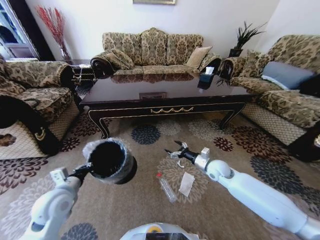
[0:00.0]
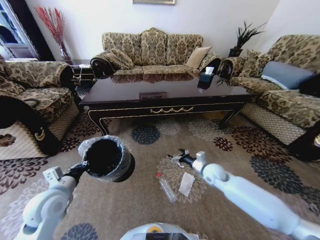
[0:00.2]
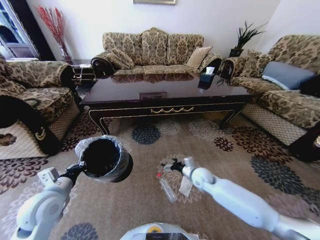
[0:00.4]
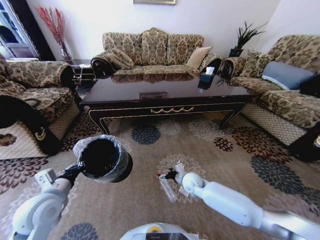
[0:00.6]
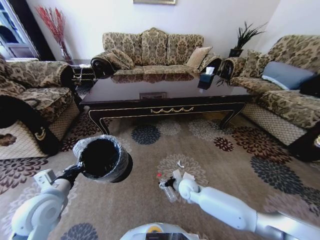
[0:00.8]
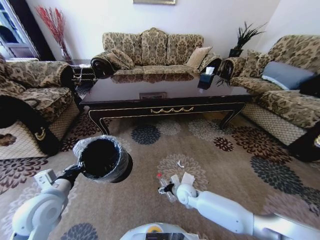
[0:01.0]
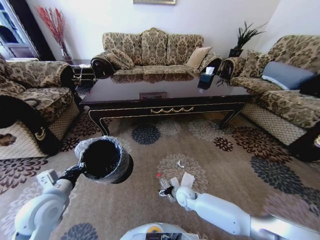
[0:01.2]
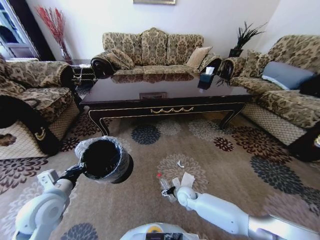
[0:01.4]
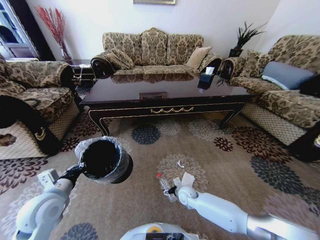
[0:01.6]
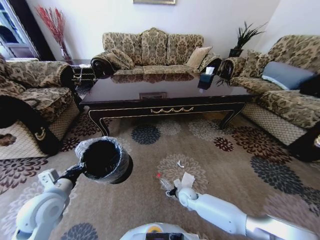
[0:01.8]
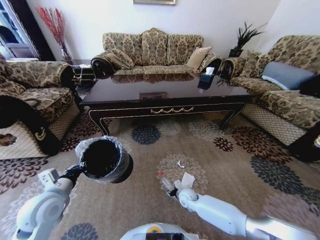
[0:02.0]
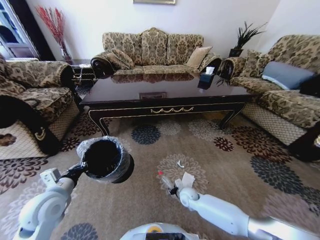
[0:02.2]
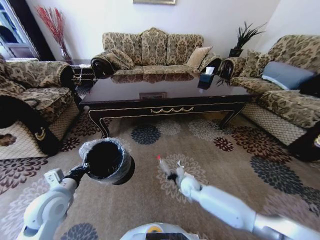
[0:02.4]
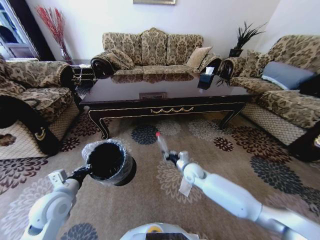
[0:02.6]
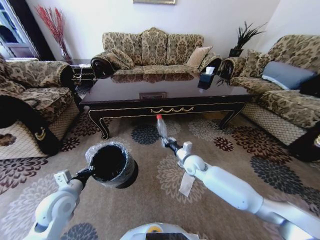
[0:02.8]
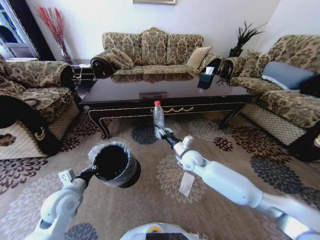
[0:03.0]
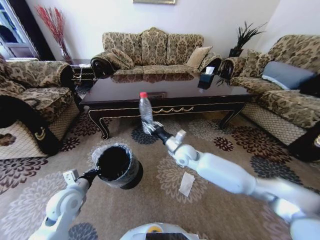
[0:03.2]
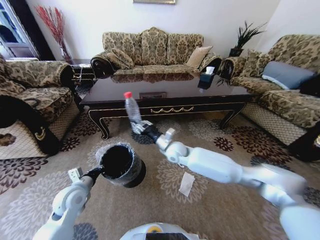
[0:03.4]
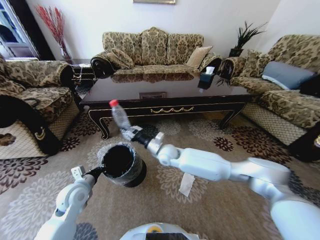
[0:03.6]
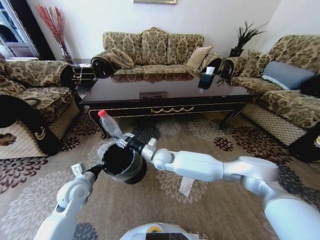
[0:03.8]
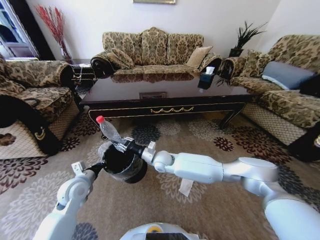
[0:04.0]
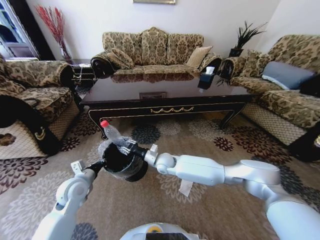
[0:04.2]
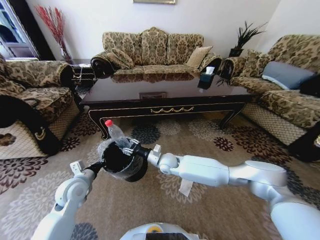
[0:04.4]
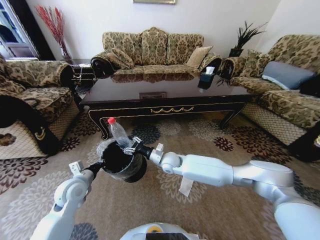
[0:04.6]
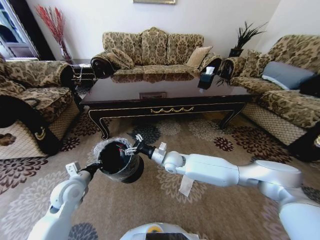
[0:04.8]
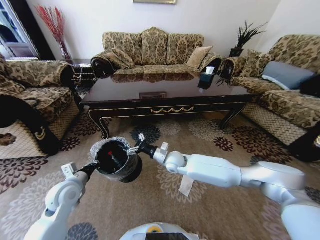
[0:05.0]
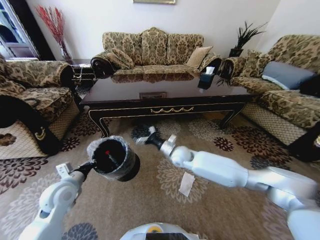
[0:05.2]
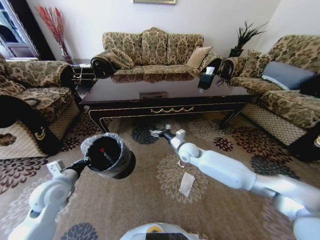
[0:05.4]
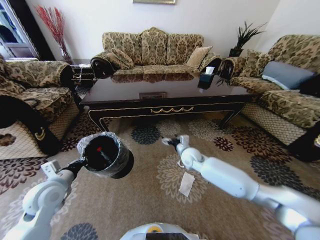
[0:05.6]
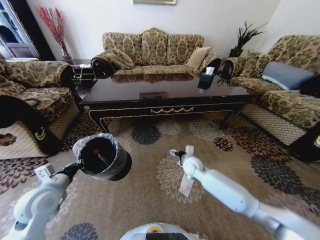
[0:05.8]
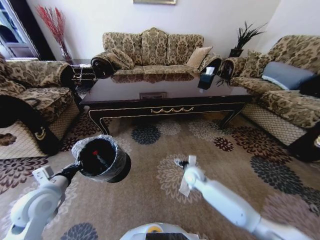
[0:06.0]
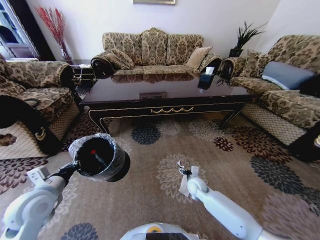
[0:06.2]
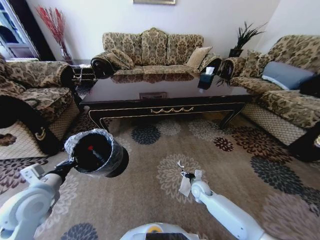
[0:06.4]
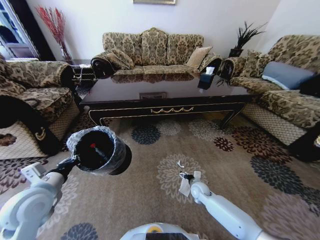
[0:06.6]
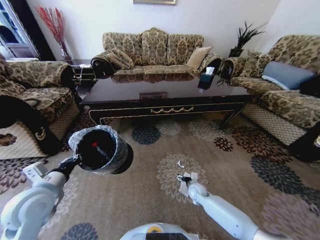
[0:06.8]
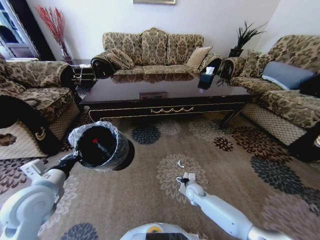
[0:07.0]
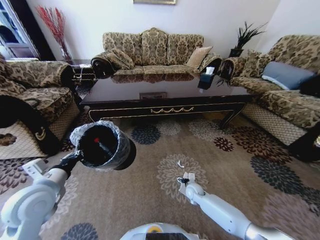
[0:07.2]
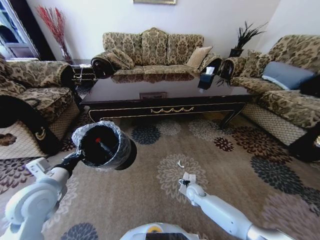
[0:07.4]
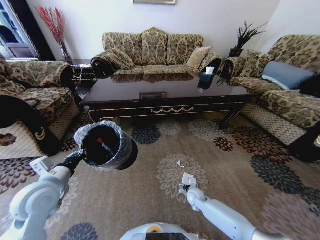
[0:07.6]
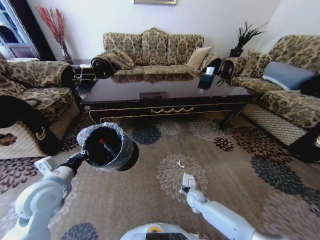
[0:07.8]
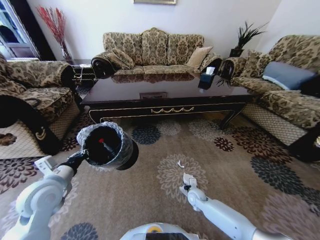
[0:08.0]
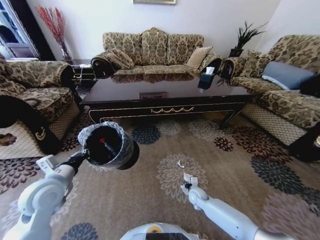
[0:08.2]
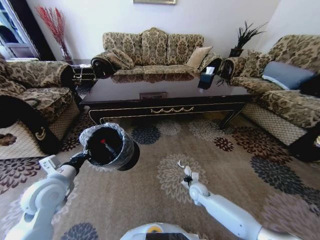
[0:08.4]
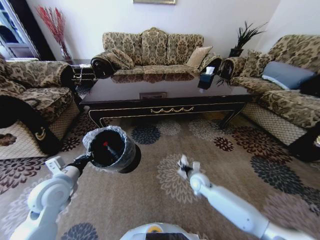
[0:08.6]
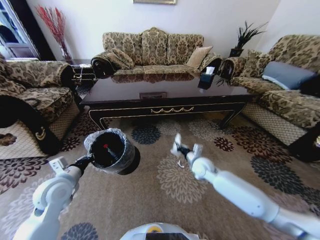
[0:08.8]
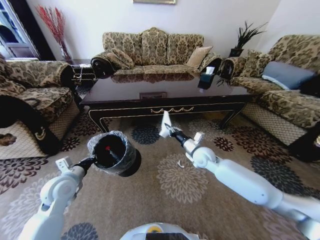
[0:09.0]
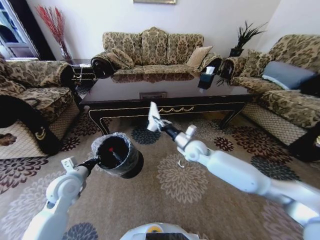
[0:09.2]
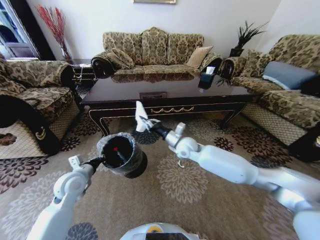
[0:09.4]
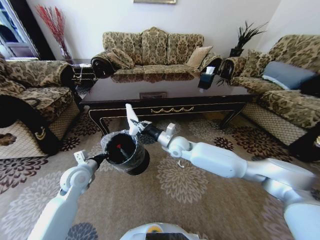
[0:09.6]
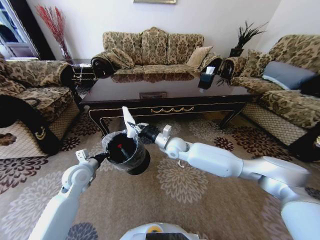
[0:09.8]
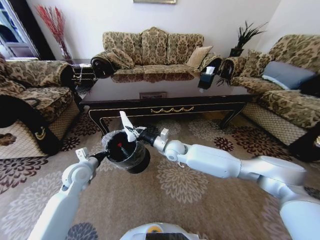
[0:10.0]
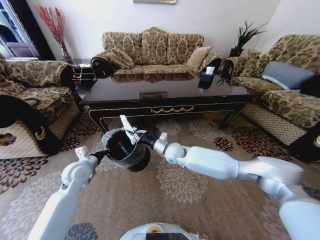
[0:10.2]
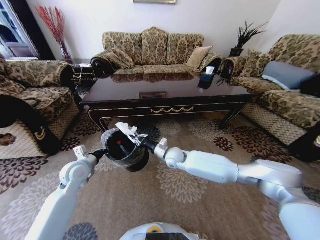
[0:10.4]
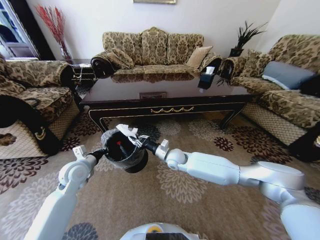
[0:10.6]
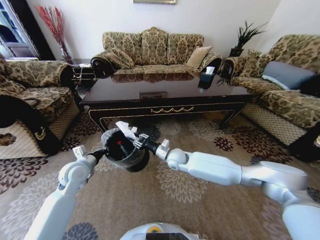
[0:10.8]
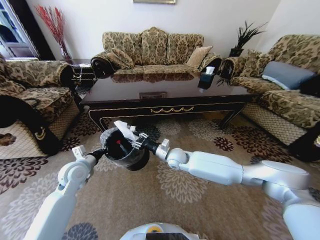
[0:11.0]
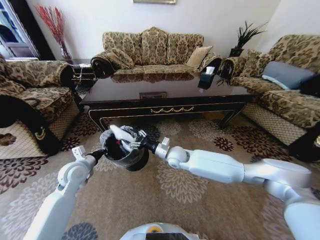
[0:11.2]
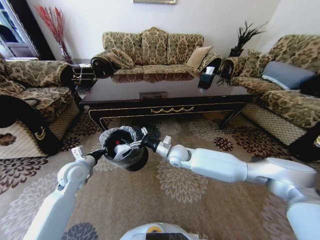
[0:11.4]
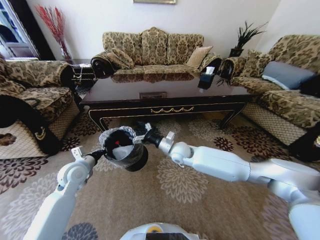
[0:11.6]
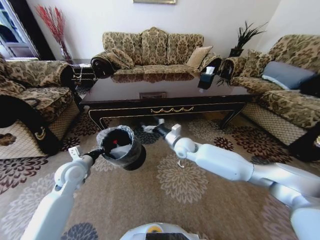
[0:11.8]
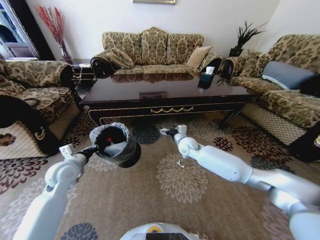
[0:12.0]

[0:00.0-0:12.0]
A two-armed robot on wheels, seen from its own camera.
Task of the whole recording: Move to the front of the table and pick up the trash from the floor, then place it into the trash bin.
0:00.0 to 0:01.6: The right gripper moves downward and to the left, approximately 20 cm.
0:01.6 to 0:03.0: The right gripper moves upward and forward, some 20 cm, and closes its fingers; the left gripper shifts by approximately 5 cm.
0:03.0 to 0:04.4: The right gripper moves to the left, approximately 10 cm.
0:04.4 to 0:06.0: The right gripper moves to the right and downward, some 15 cm, and opens up; the left gripper goes some 10 cm backward and upward.
0:06.0 to 0:07.6: The right gripper moves downward and backward, approximately 15 cm.
0:07.6 to 0:09.0: The left gripper shifts about 5 cm downward. Meanwhile the right gripper goes roughly 25 cm upward, and closes its fingers.
0:09.0 to 0:10.4: The right gripper is displaced to the left by approximately 15 cm; the left gripper heads forward, covering some 5 cm.
0:10.4 to 0:12.0: The right gripper goes roughly 5 cm to the right, and opens its fingers.

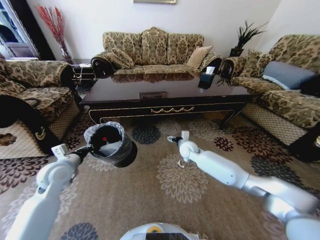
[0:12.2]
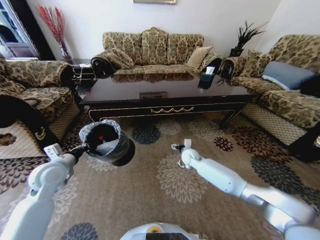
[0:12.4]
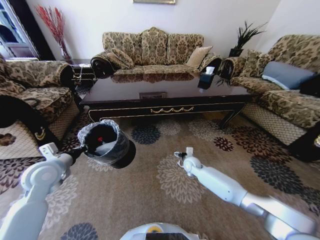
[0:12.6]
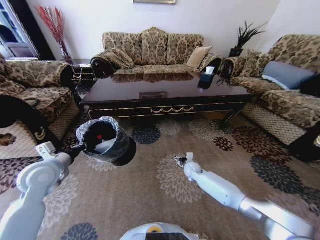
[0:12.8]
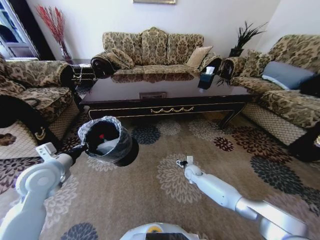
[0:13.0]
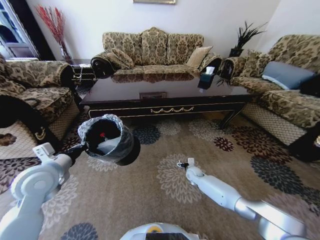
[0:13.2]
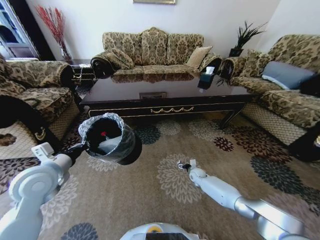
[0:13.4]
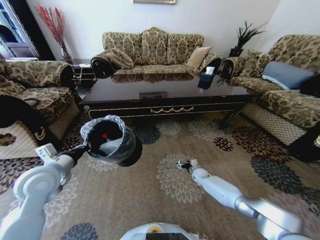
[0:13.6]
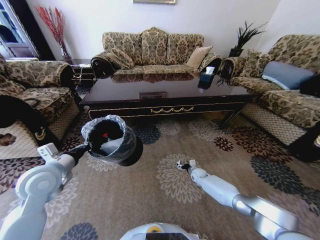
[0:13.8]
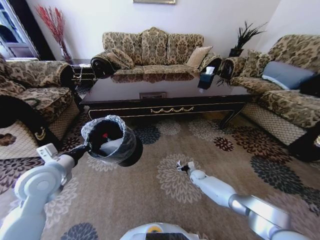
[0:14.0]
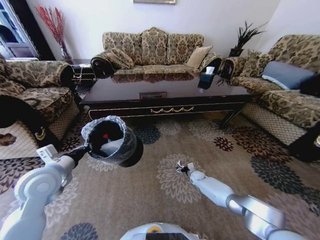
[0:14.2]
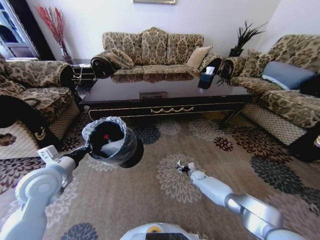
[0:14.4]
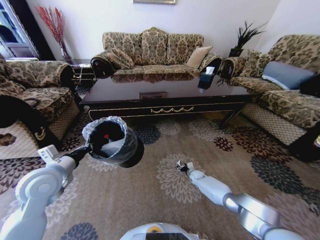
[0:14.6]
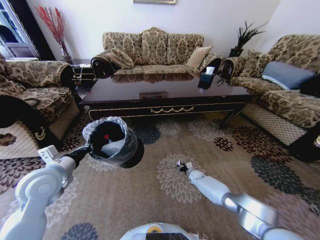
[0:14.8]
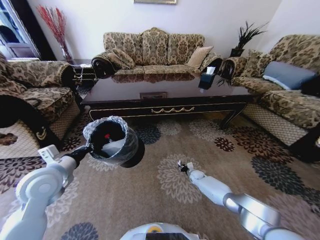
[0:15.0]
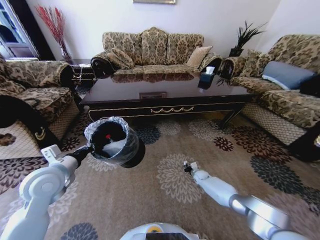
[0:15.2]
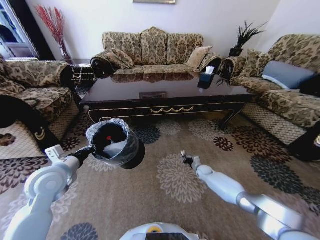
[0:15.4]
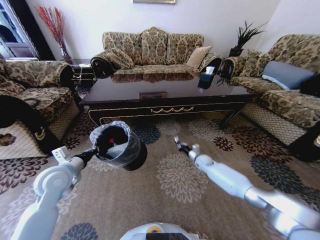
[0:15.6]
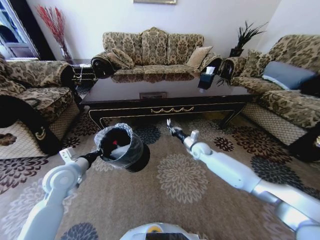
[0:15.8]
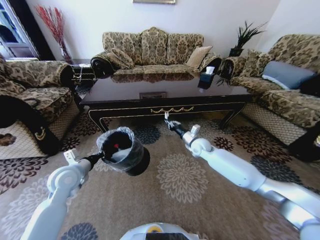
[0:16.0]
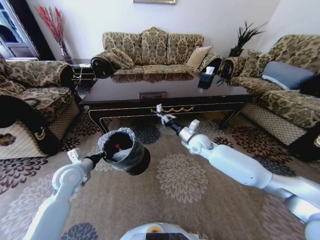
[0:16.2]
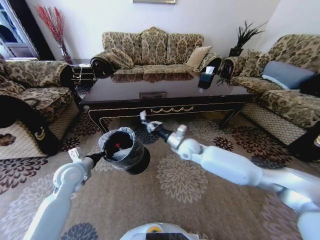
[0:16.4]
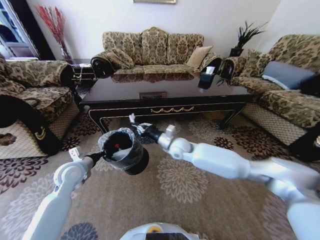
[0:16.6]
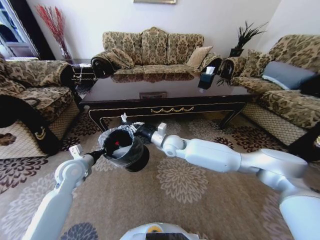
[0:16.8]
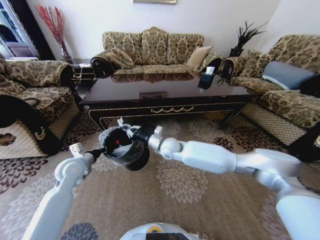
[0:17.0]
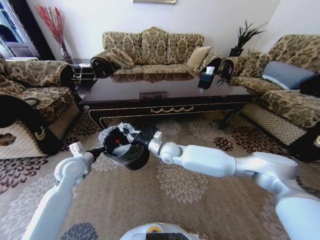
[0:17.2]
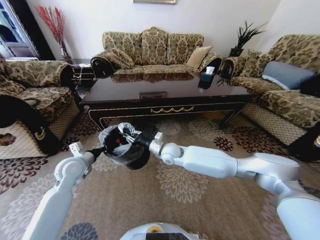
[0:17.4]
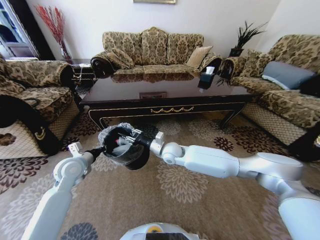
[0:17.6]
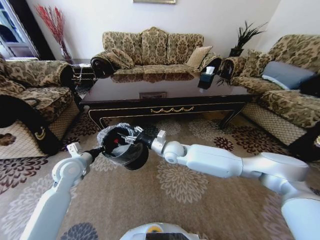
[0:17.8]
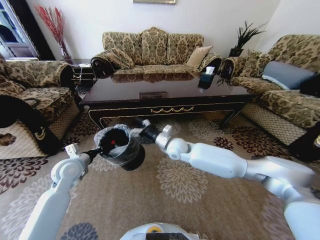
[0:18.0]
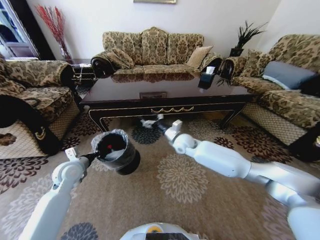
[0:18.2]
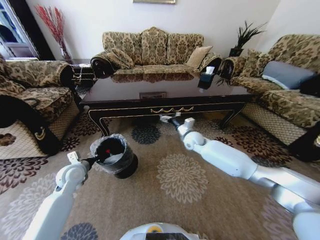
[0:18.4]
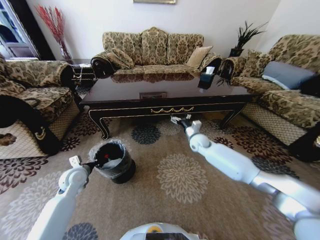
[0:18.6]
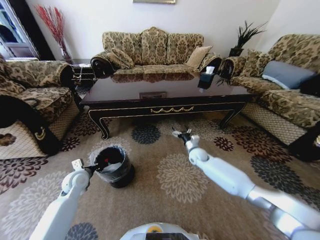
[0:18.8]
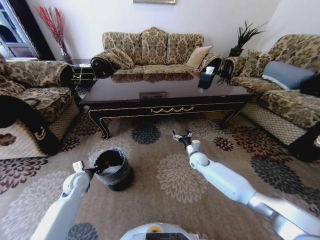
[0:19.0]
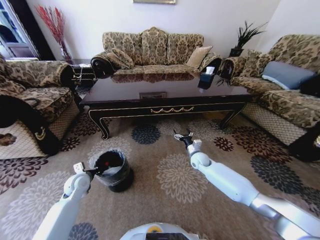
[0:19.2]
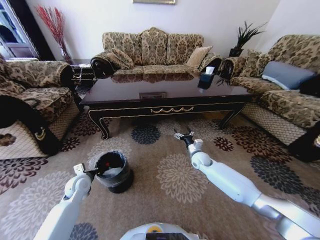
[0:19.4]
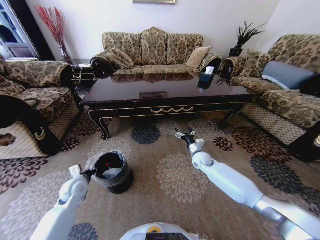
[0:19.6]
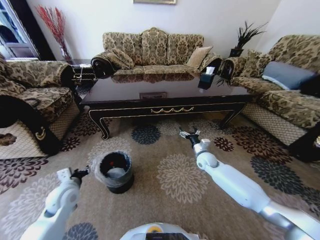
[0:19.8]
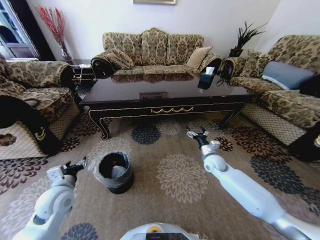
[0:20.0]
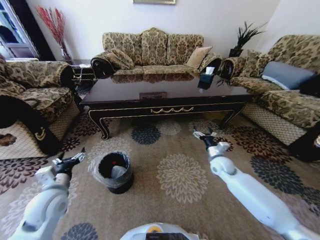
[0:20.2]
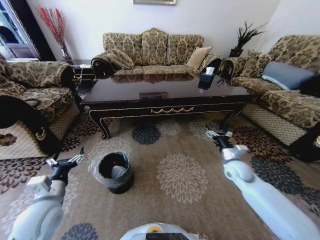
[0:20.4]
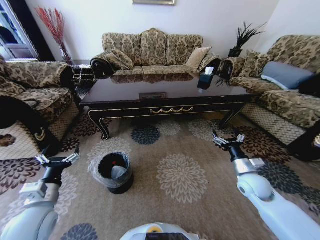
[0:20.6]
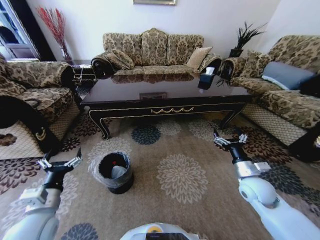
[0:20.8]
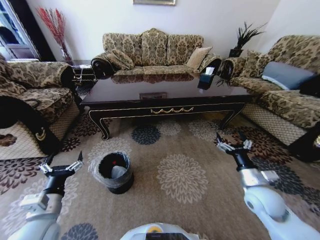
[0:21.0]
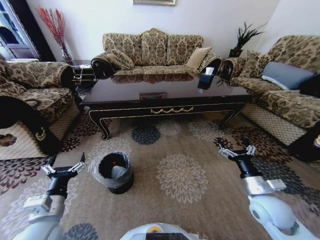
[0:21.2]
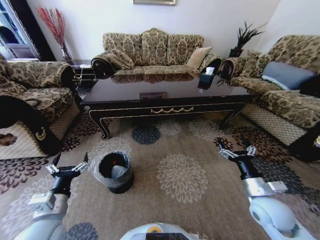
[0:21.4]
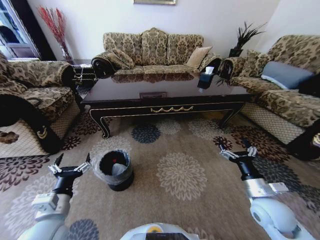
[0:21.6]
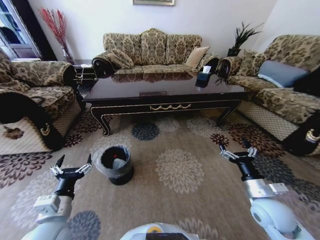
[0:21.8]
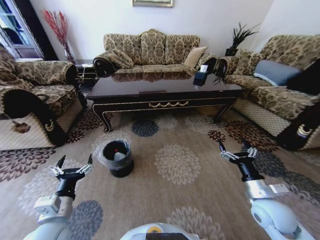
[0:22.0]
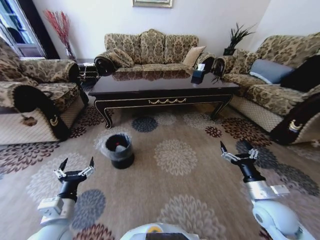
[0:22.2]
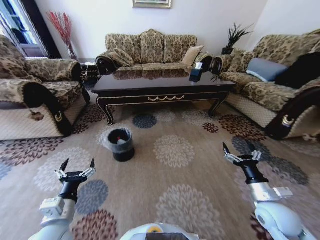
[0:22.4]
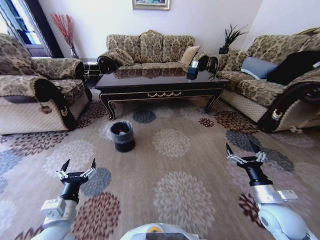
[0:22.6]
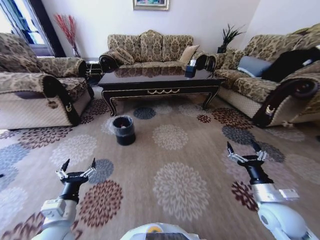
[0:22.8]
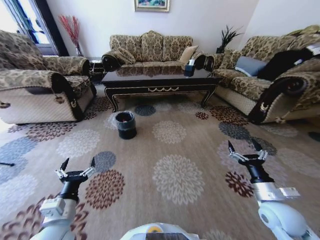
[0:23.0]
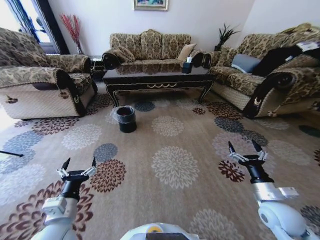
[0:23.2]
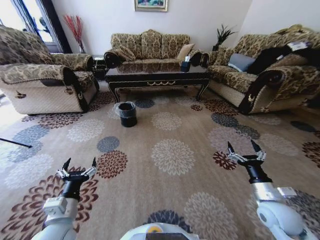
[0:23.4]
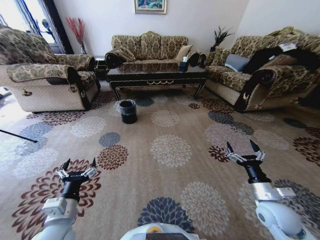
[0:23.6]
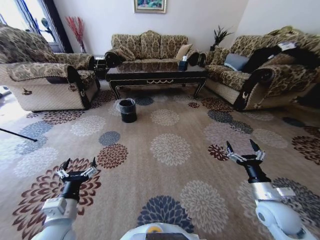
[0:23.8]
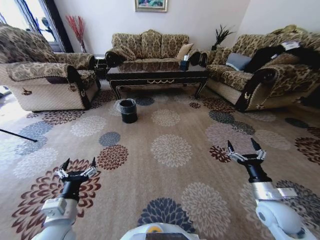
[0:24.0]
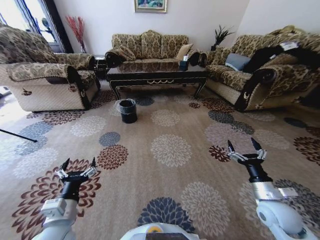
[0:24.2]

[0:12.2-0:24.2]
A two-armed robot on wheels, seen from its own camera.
Task of the whole recording: Move to the front of the table and pick up the trash from the floor, then place it into the trash bin.
0:12.2 to 0:13.8: The right gripper moves downward and to the right, about 25 cm, while the left gripper travels upward by some 5 cm.
0:13.8 to 0:15.2: The right gripper closes up.
0:15.2 to 0:16.6: The left gripper travels downward and forward by approximately 10 cm; the right gripper shifts some 40 cm upward and to the left.
0:16.6 to 0:18.2: The right gripper opens up.
0:18.2 to 0:19.8: The right gripper goes approximately 20 cm to the right and downward. Meanwhile the left gripper goes some 10 cm backward and downward, and opens its fingers.
0:19.8 to 0:21.2: The right gripper shifts about 25 cm backward, while the left gripper goes about 15 cm backward and upward, and opens up.
